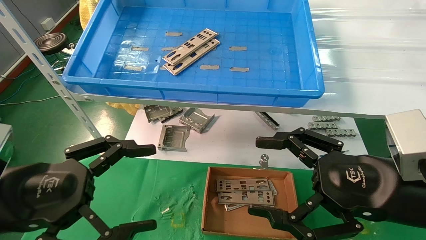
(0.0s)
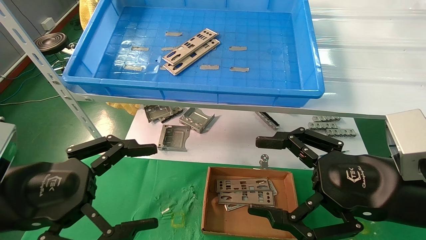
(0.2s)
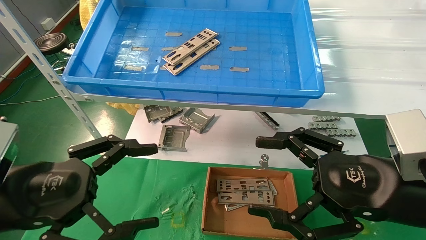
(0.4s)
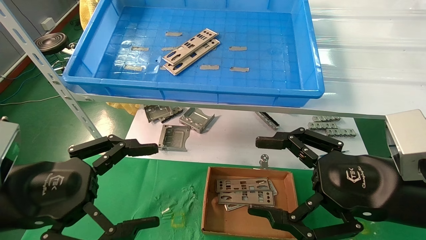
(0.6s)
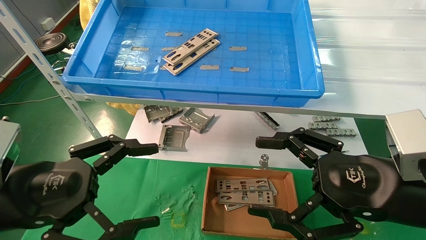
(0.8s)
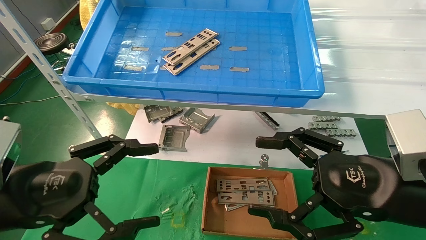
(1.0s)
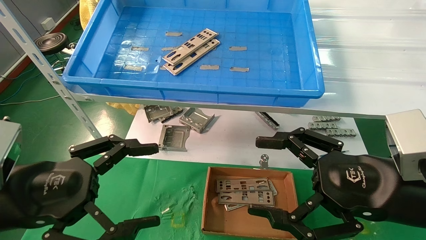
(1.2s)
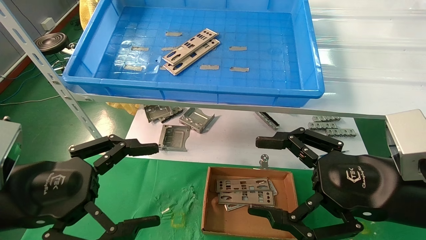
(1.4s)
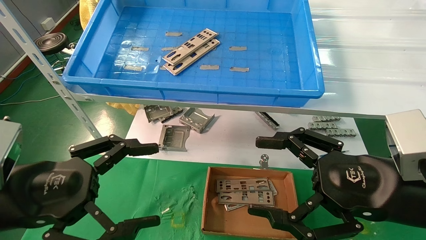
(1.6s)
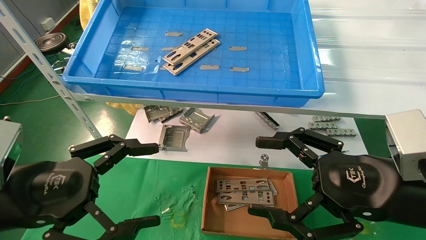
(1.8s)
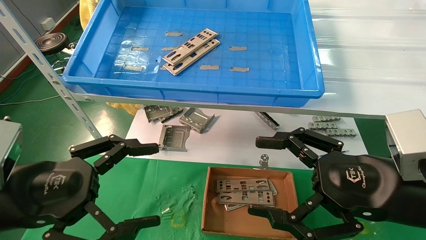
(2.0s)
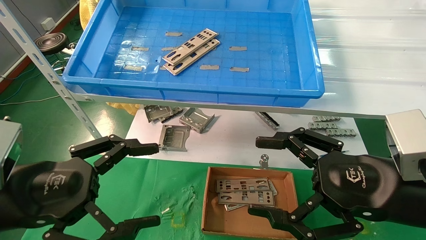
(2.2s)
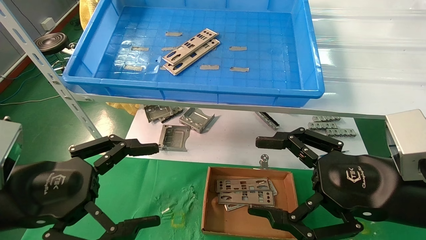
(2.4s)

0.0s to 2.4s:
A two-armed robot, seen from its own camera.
Task of the whole recording: pick up the parts on the tray and put them in the cardboard box.
0.0s to 2.4s: The two grippers keep their place.

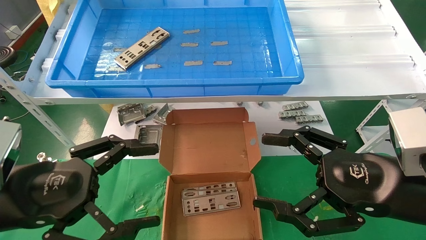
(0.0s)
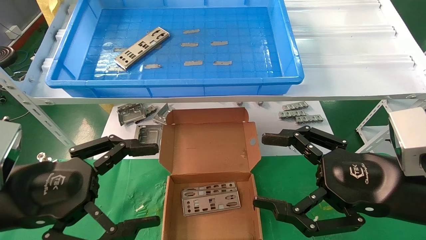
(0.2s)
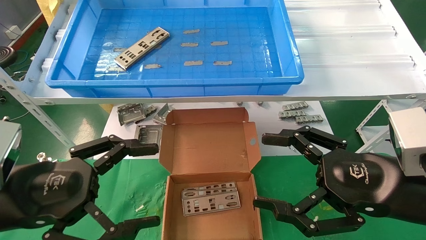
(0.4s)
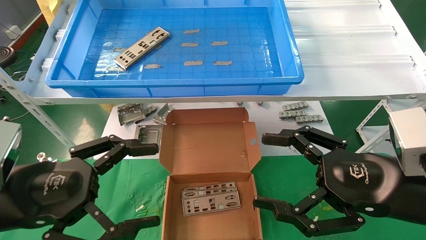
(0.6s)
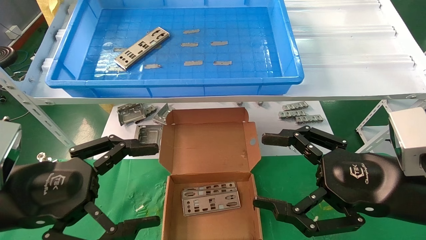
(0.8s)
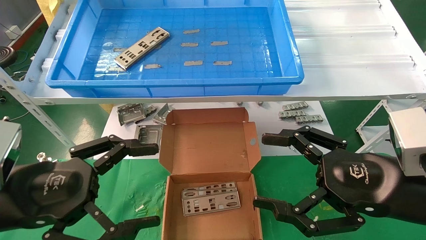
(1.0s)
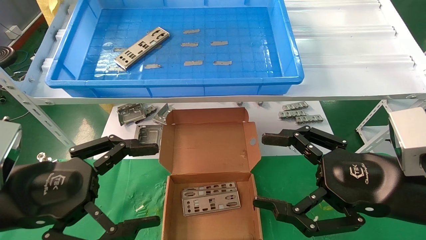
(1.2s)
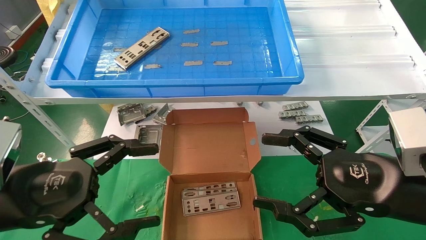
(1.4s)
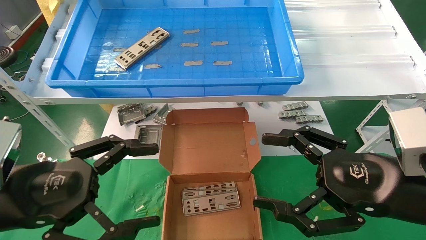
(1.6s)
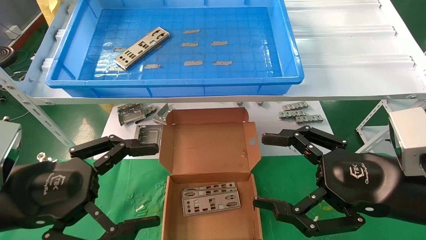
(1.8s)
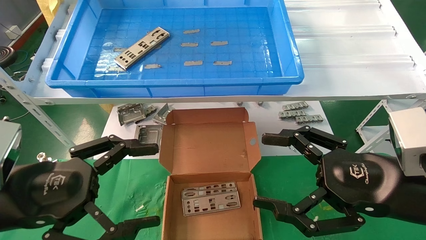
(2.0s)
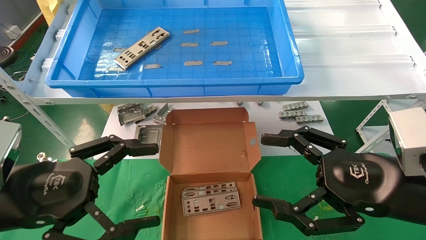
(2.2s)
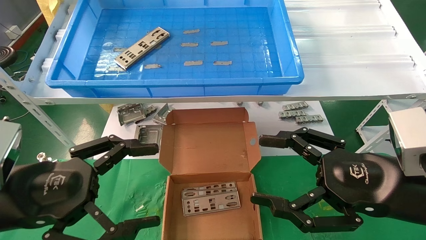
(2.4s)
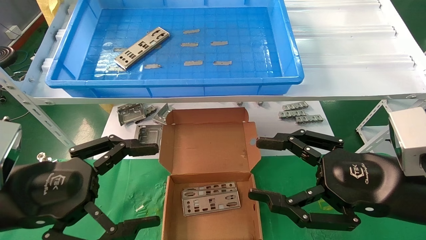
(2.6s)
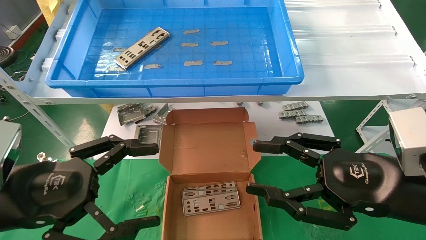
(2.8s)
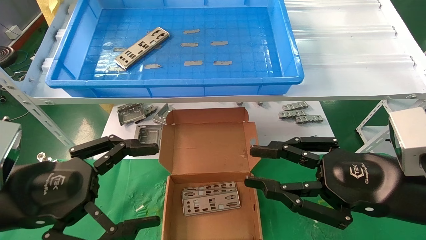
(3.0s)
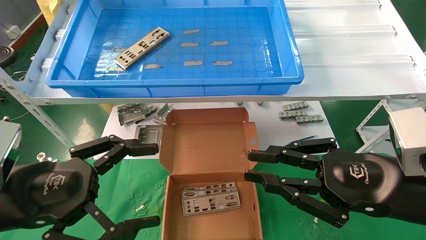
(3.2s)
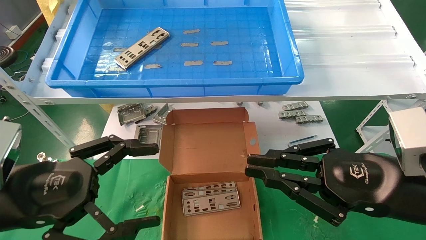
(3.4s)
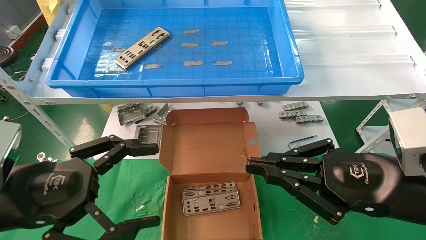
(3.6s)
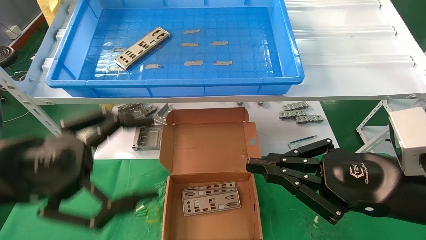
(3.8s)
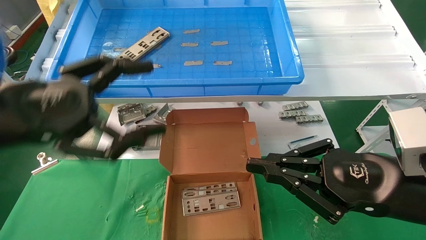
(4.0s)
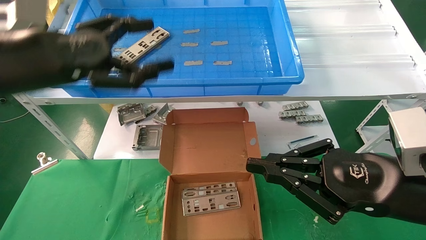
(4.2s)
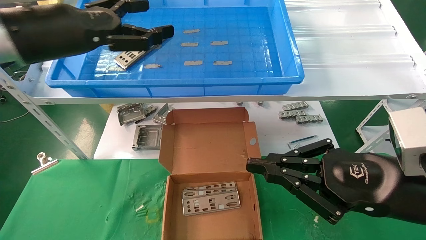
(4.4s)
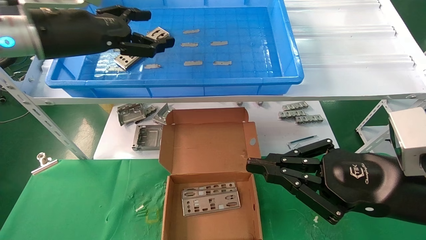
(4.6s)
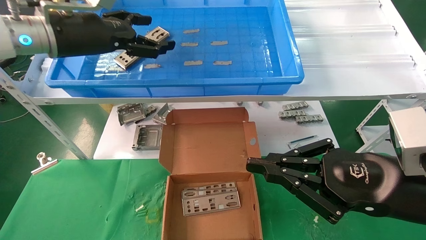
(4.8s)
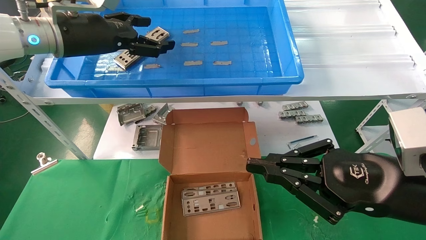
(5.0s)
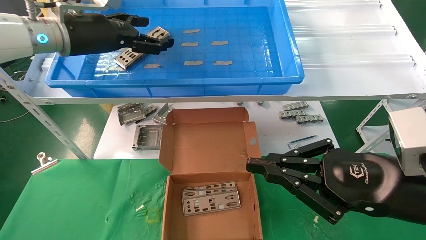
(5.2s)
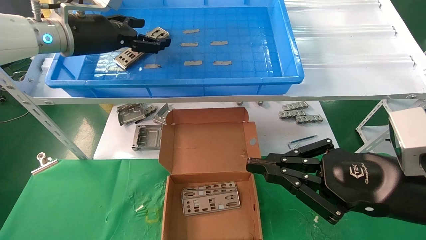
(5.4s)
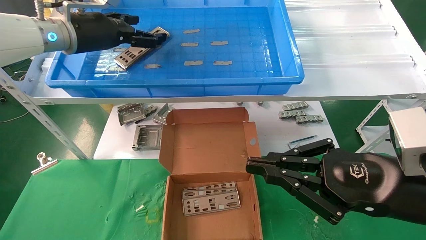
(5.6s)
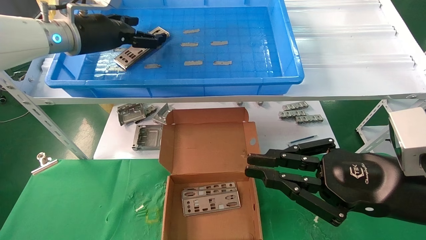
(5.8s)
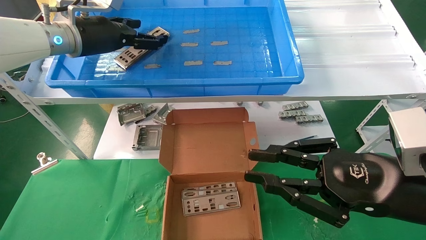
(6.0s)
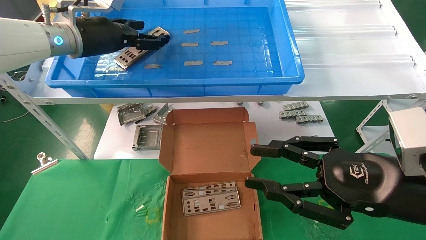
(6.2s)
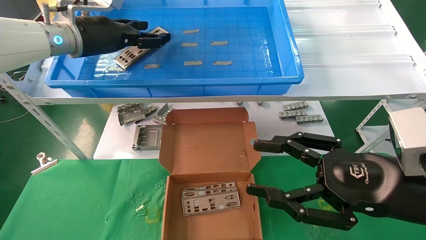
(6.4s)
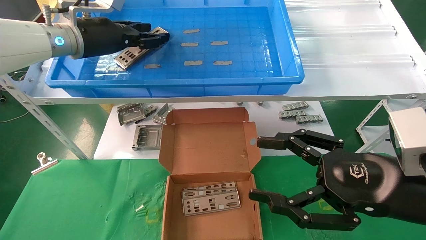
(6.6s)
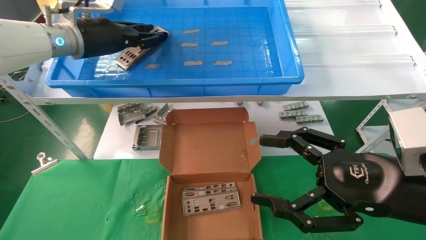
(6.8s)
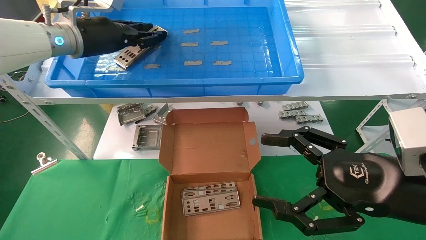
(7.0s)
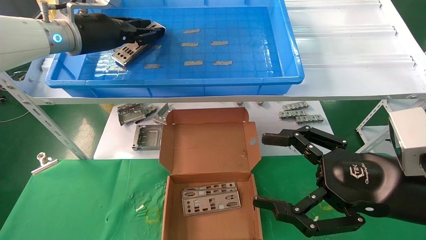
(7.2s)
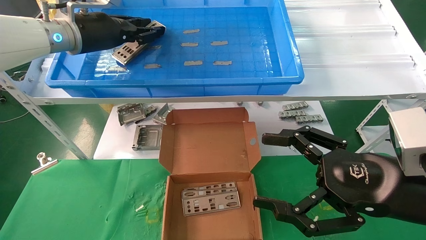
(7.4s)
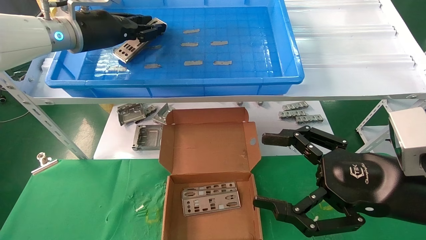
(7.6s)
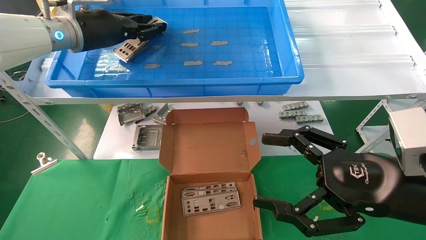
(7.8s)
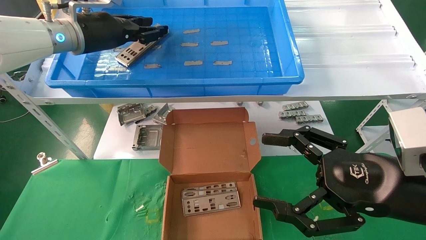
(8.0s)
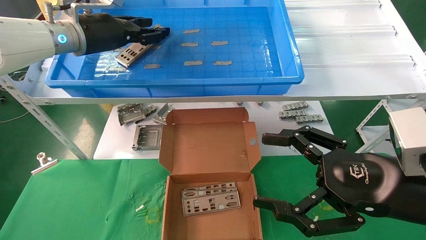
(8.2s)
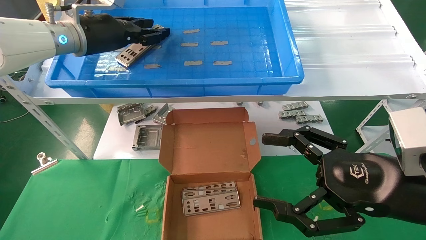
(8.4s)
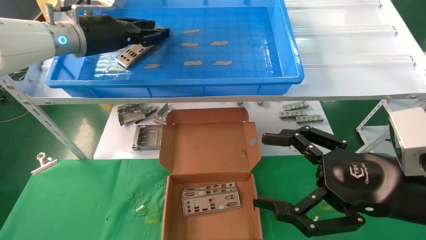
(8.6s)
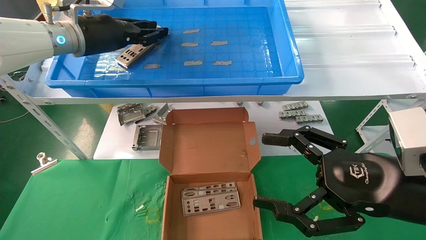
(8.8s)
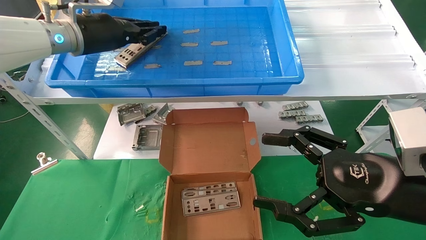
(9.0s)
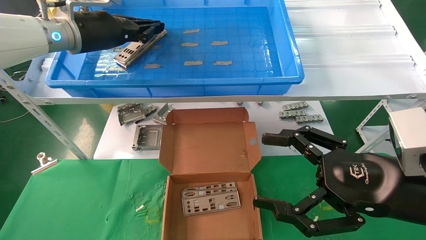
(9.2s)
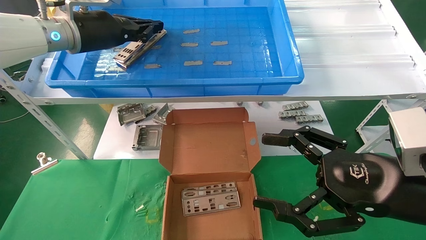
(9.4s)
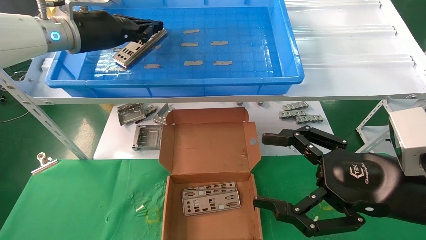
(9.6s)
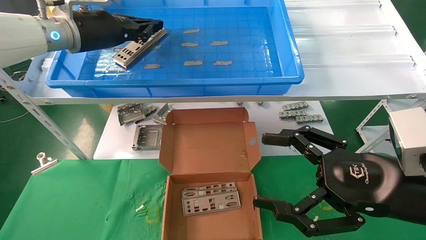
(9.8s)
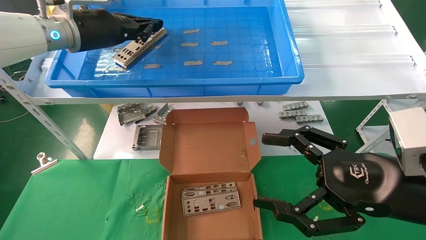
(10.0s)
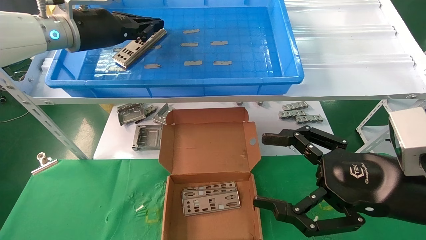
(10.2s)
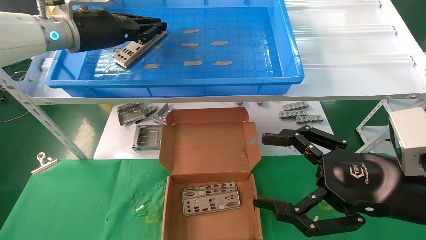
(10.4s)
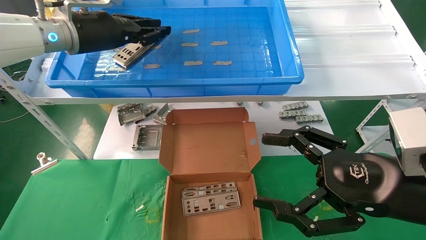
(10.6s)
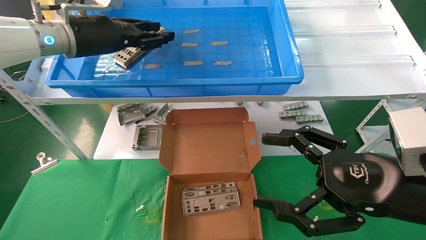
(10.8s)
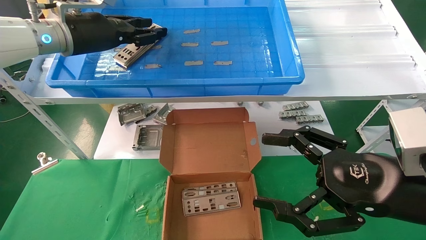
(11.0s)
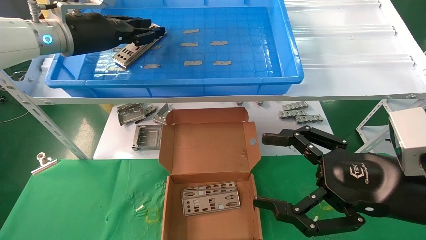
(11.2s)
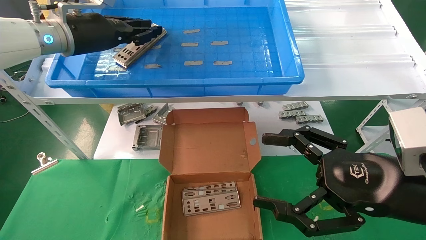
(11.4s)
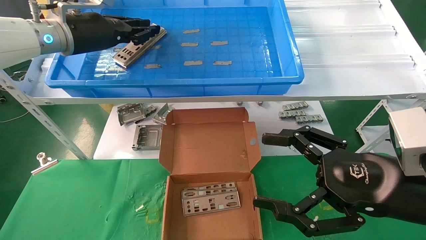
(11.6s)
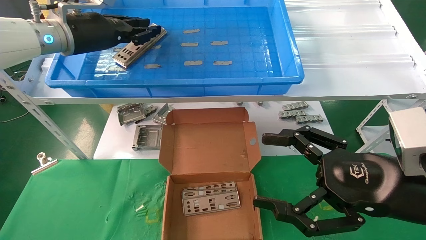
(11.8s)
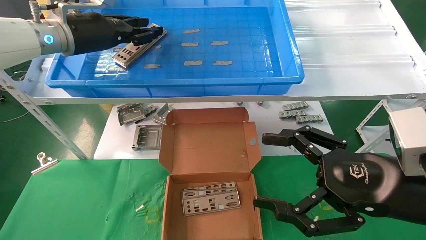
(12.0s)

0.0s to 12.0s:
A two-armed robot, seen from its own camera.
Task of the whole recording: pick up the parts on the tray and put them in the cardboard box.
0.0s to 1.6s: The two grippers keep their place.
1.6s to 3.0s: The right gripper closes up.
3.0s to 4.4s: The right gripper closes. Meanwhile the left gripper moves upward and forward, about 20 cm.
4.4s to 6.0s: The left gripper heads forward, covering about 10 cm.
6.0s to 7.6s: The left gripper closes, while the right gripper opens.
7.6s to 10.4s: Both grippers stay about where they are.
10.4s to 12.0s: The grippers stay close to where they were, moving slightly.

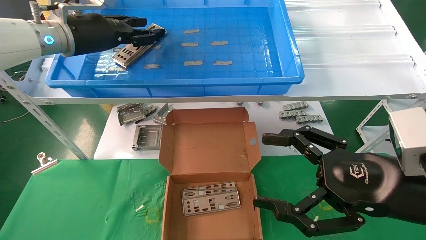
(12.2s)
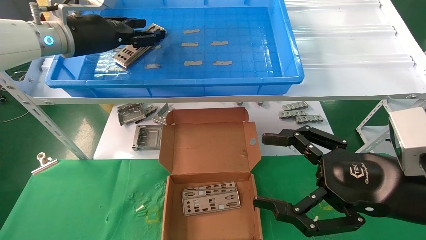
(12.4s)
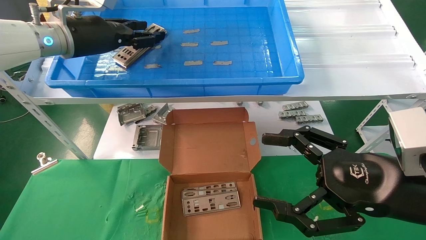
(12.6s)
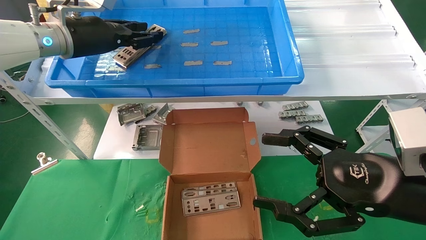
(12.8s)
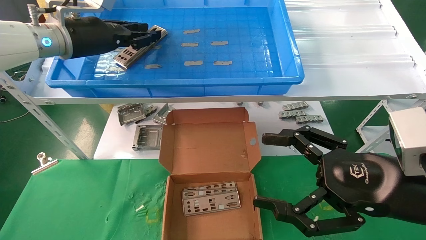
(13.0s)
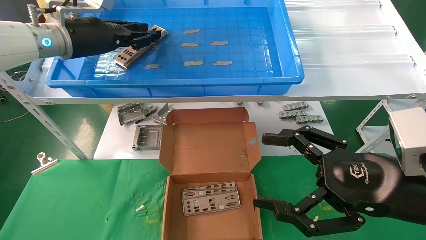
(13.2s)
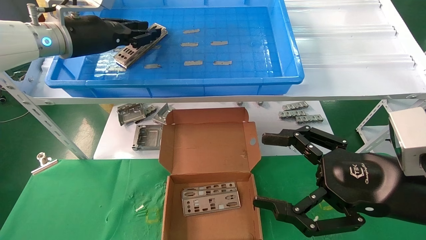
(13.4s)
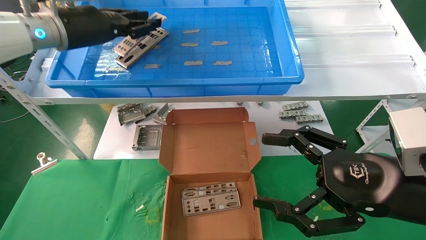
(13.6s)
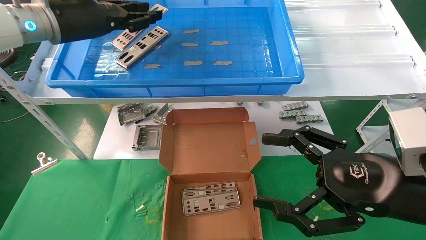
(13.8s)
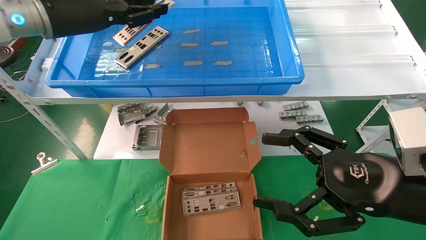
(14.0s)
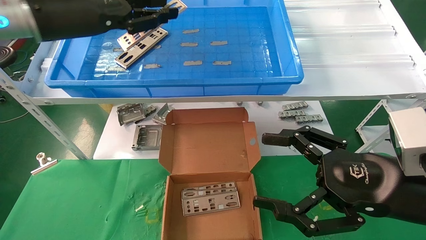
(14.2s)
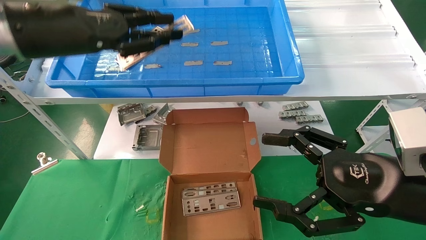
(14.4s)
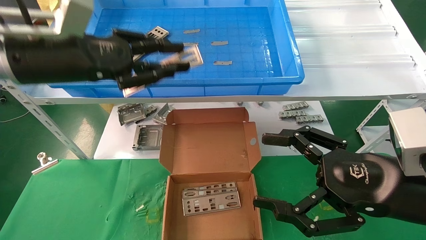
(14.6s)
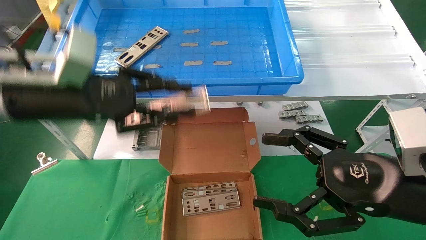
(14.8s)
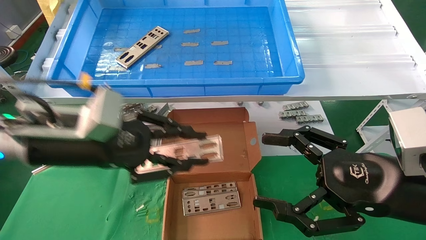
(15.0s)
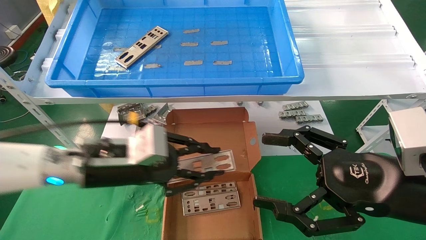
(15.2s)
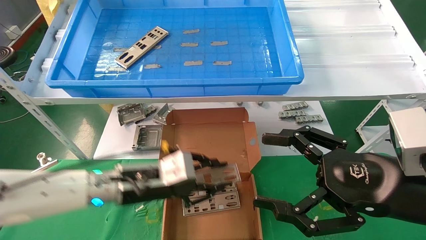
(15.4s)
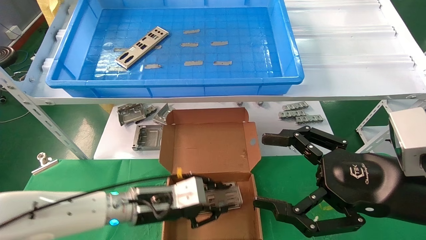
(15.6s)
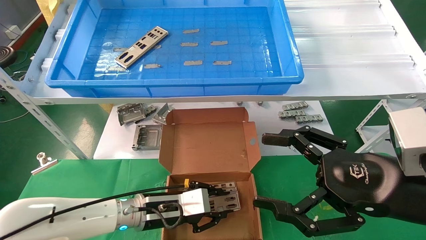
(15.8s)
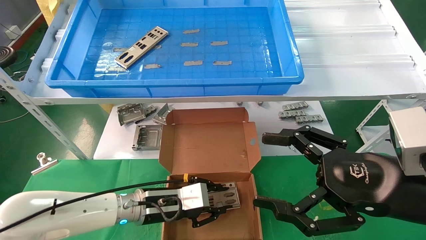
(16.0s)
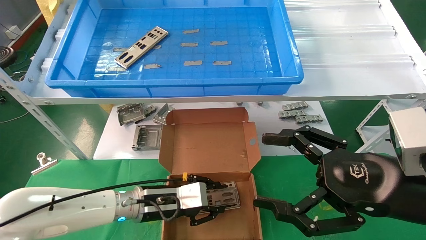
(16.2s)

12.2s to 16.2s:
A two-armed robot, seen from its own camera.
Task of the whole recording: pick up the parts on the tray and put them in the cardboard box.
12.2s to 13.6s: The grippers stay close to where they were, moving slightly.
13.6s to 14.8s: The left gripper moves backward and downward, roughly 15 cm.
14.8s to 16.2s: The left gripper goes about 25 cm downward and to the right.
